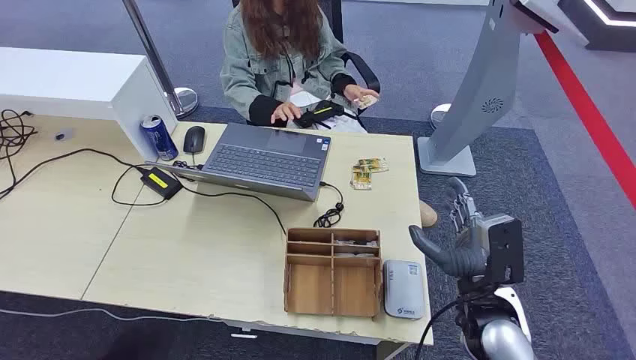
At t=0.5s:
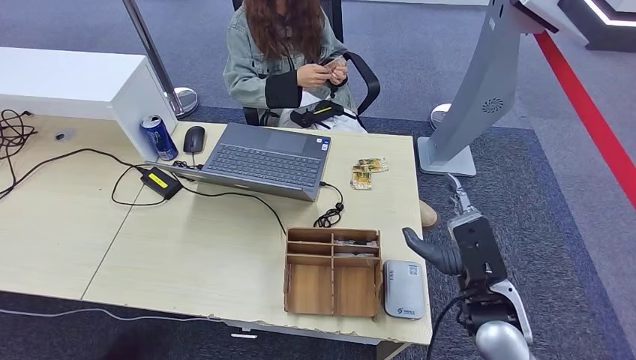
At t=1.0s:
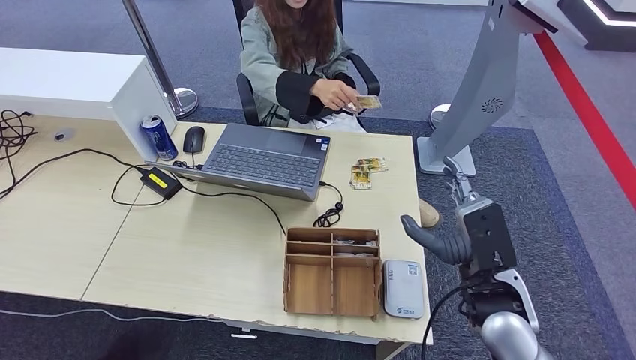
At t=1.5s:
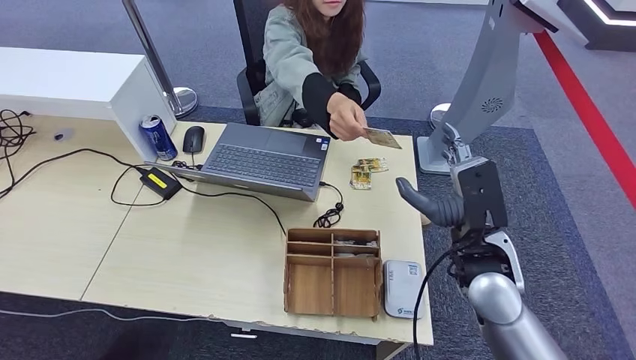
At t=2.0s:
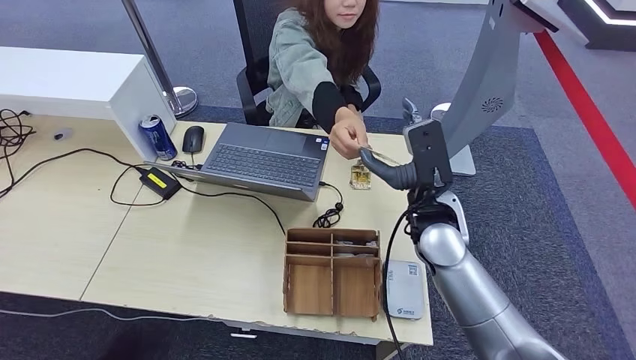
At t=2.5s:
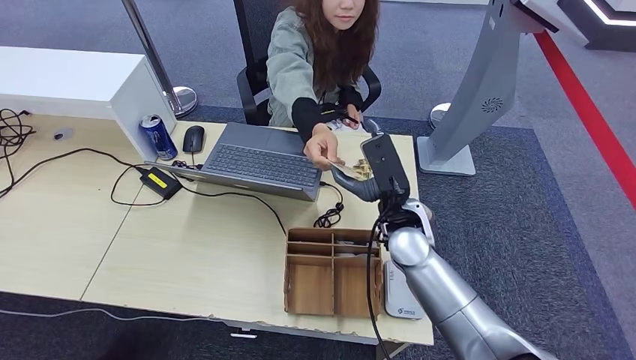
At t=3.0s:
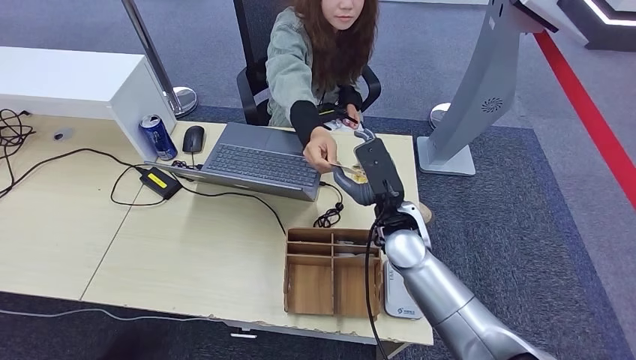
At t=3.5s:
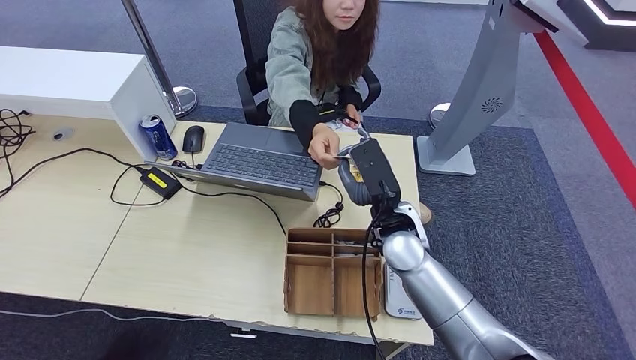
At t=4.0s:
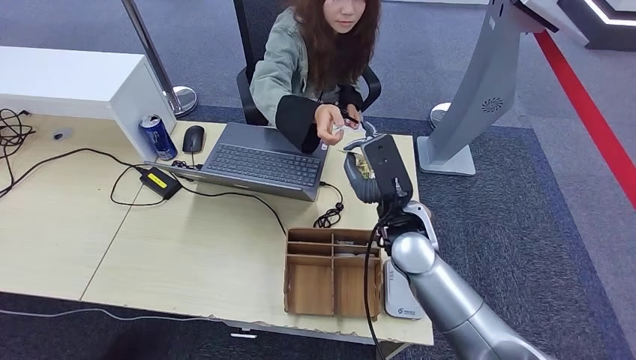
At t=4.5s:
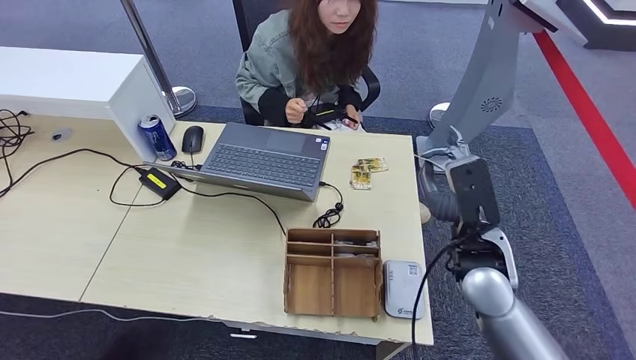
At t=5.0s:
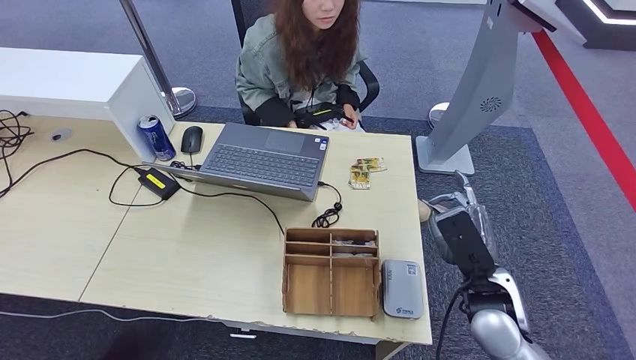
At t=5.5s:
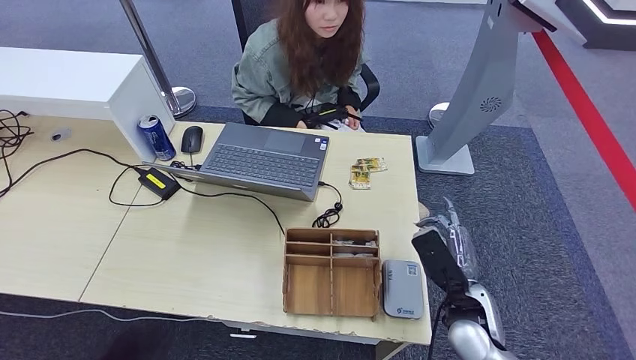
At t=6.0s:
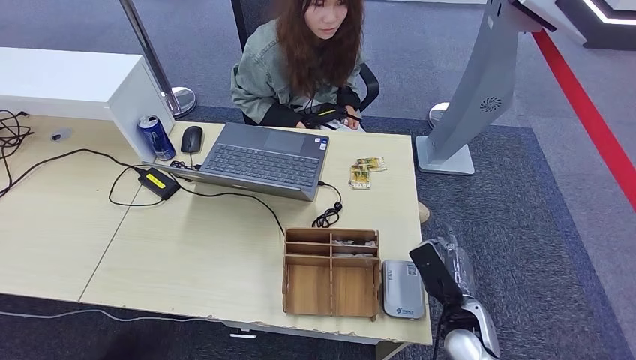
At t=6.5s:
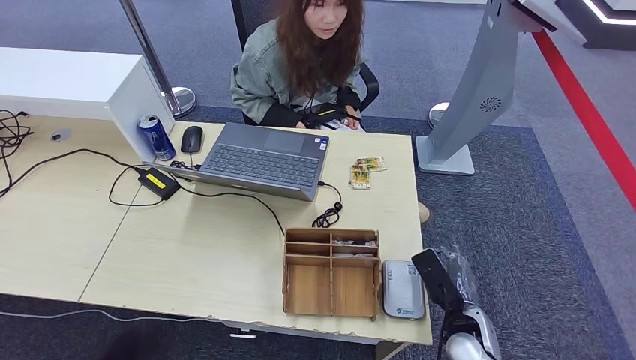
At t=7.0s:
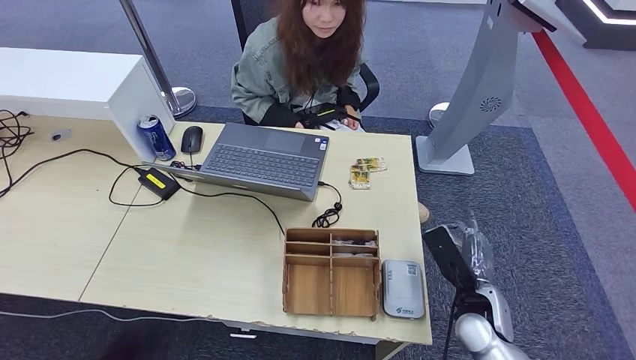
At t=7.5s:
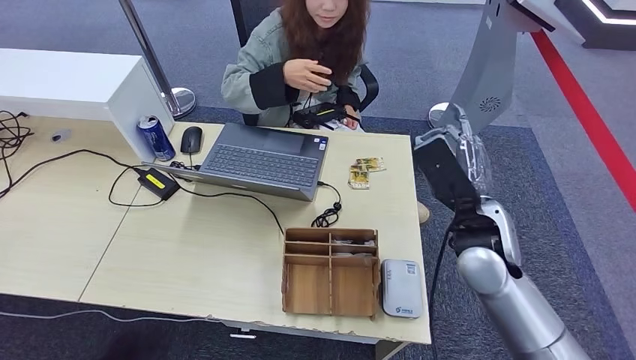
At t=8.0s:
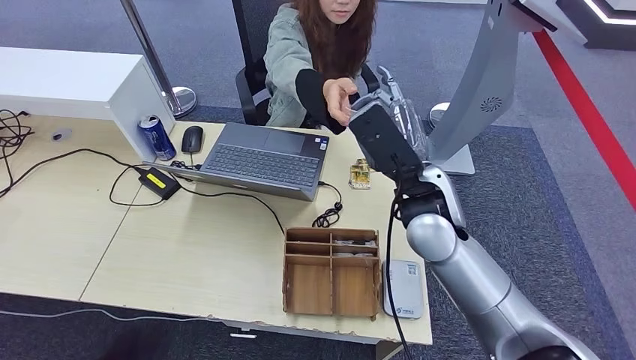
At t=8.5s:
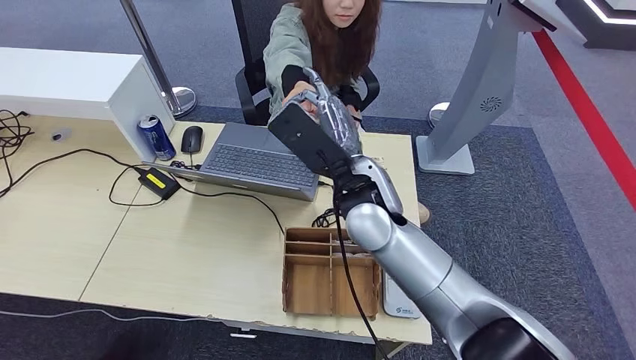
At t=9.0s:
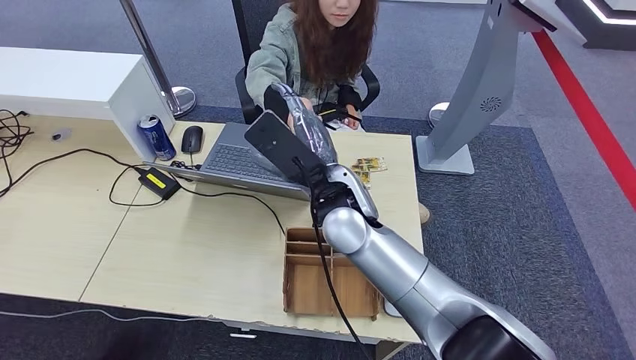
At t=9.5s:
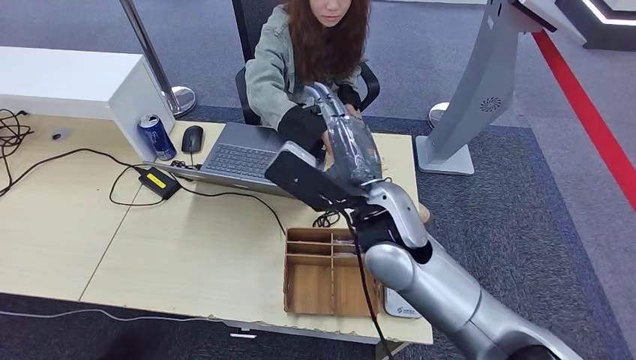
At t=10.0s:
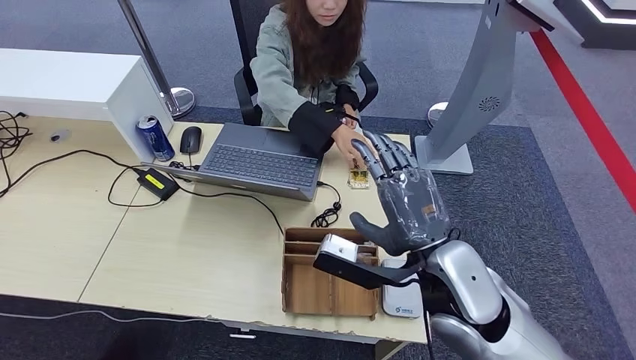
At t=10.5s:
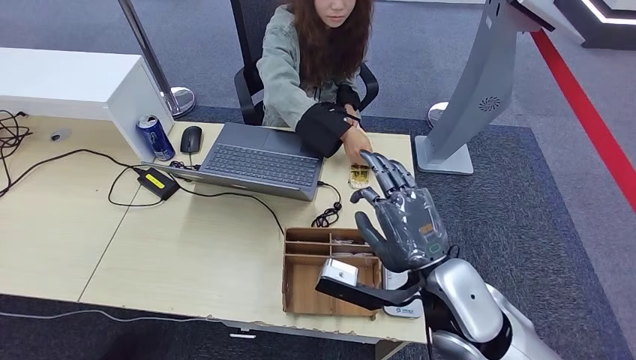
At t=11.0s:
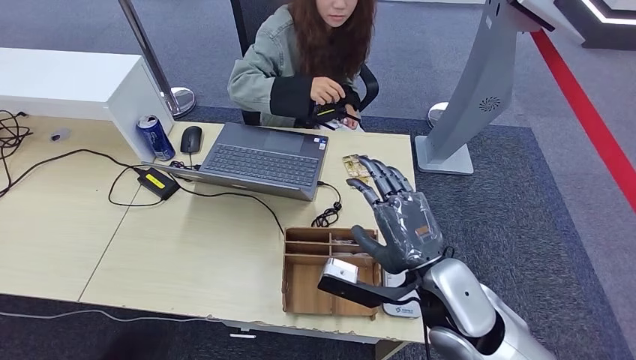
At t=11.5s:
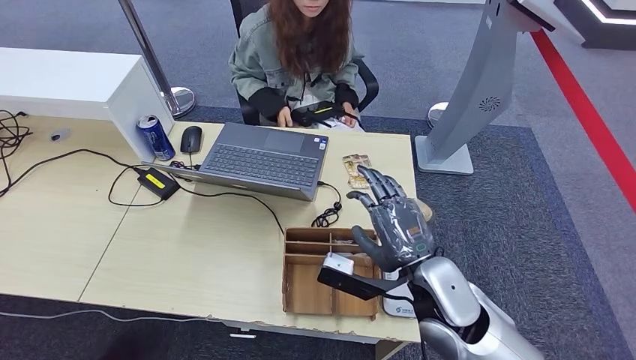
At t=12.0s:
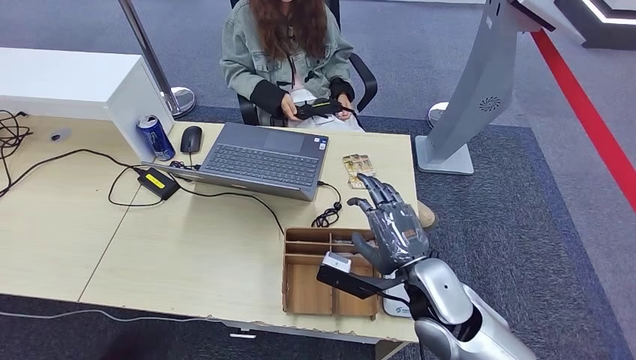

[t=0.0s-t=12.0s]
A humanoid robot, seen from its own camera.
Step, t=0.0s to t=2.5s: Take the ID card from the person's hand.
Step, t=3.0s to t=7.0s: Place the ID card on the card reader.
Step, t=7.5s to t=9.5s: Hand the ID card to the person.
t=2.0s to t=4.0s: The hands stay close to where they were, moving slightly.
t=4.0s to t=6.0s: The right hand shifts approximately 25 cm downward, backward and to the right.
t=6.0s to t=8.0s: The right hand shifts roughly 30 cm upward, forward and to the left.
t=10.0s to t=12.0s: The right hand travels downward by approximately 10 cm.

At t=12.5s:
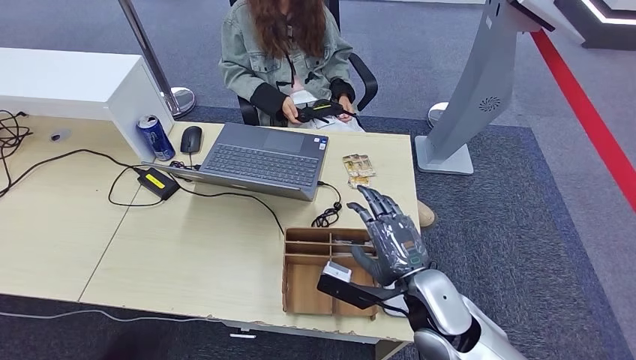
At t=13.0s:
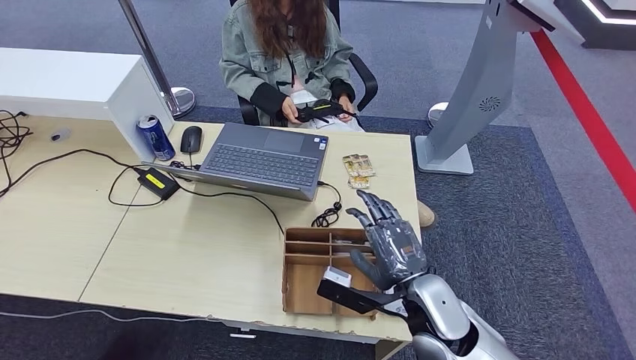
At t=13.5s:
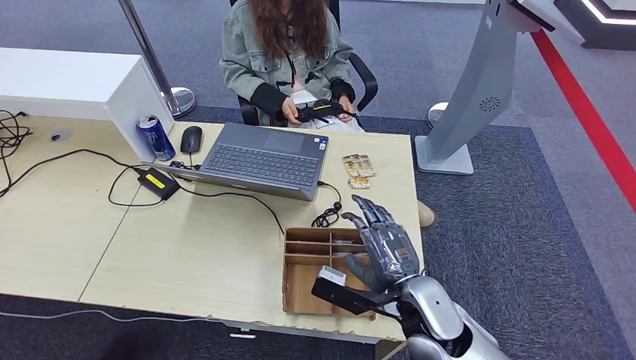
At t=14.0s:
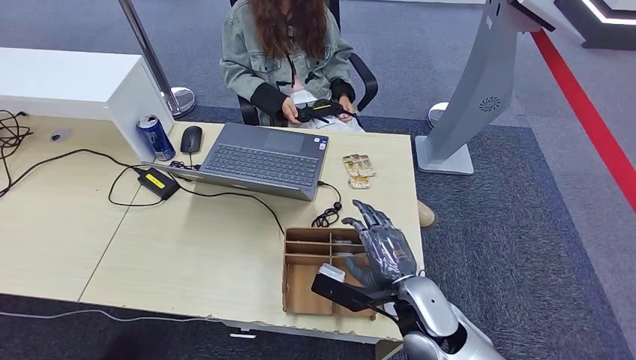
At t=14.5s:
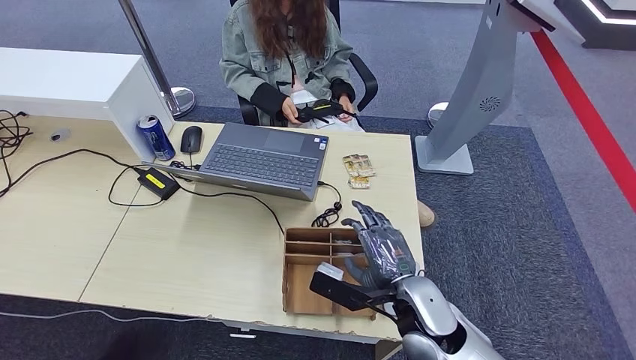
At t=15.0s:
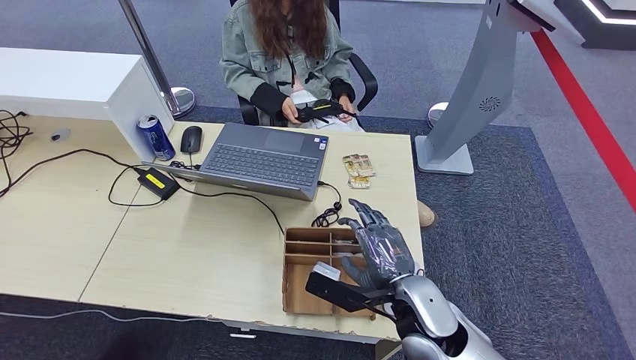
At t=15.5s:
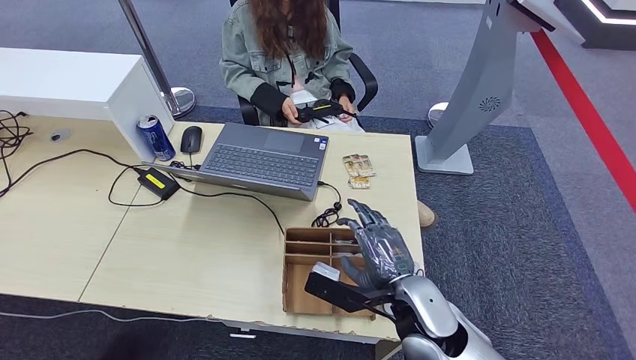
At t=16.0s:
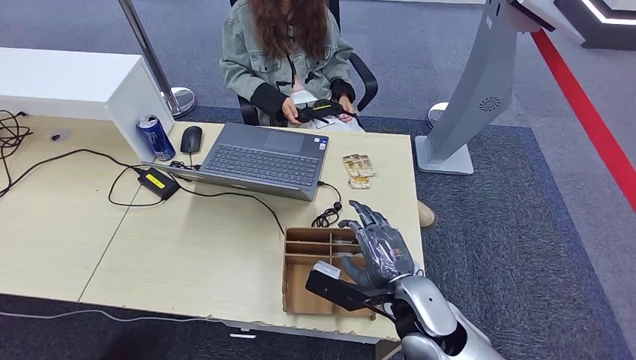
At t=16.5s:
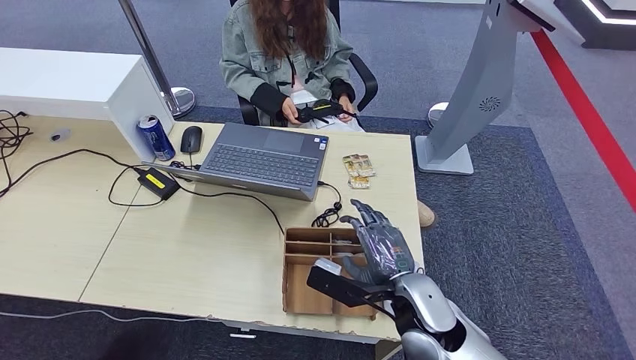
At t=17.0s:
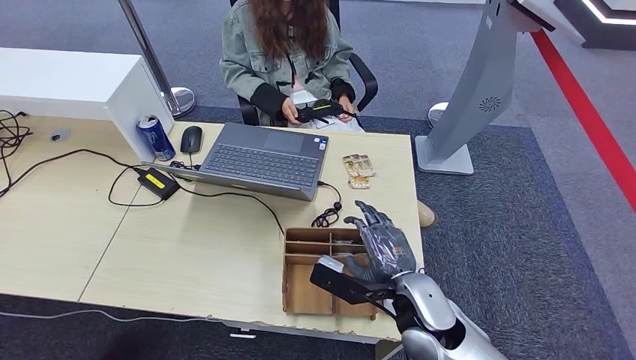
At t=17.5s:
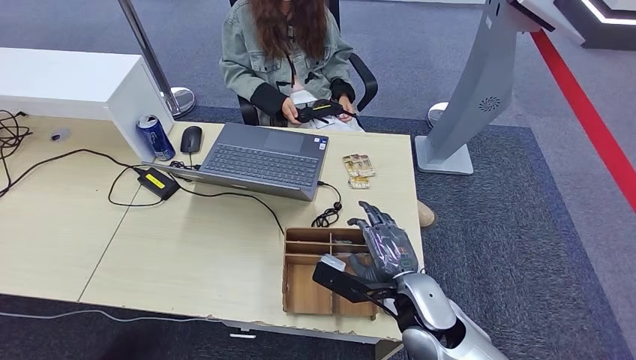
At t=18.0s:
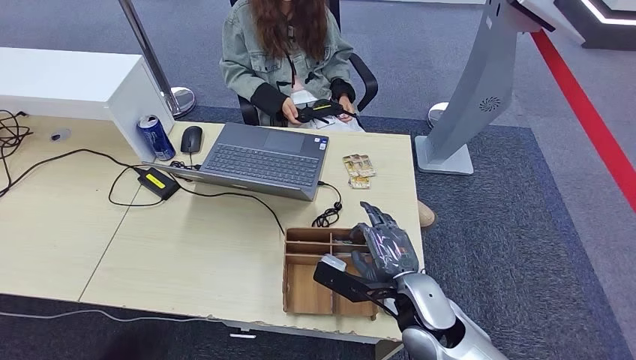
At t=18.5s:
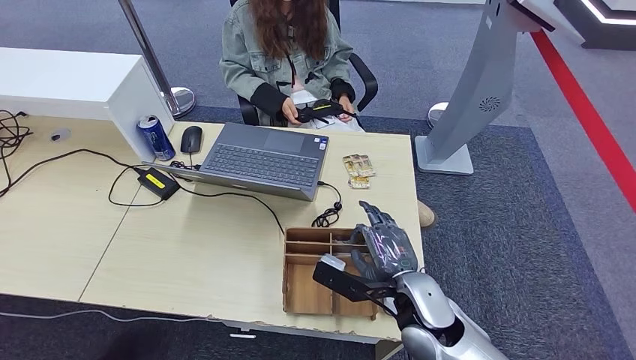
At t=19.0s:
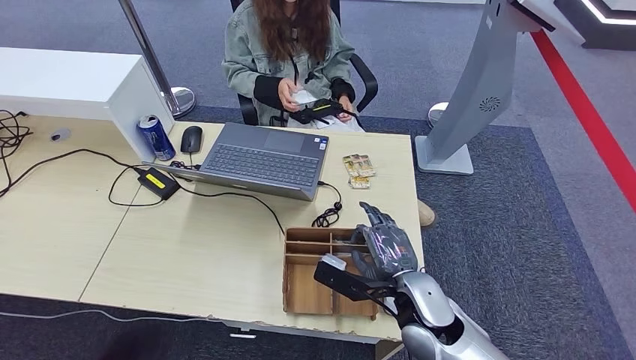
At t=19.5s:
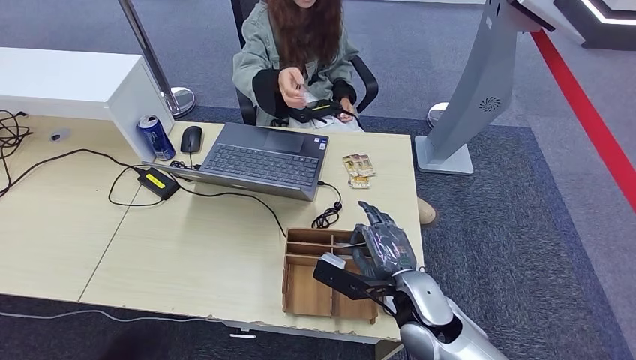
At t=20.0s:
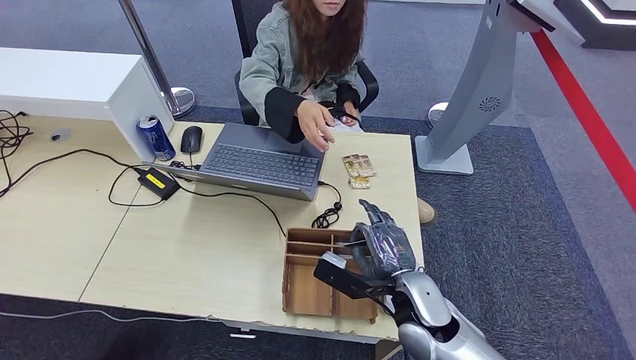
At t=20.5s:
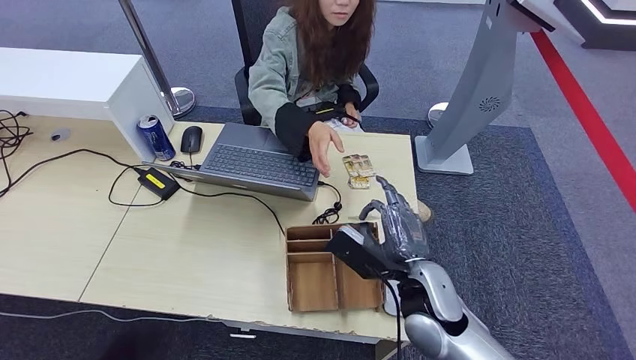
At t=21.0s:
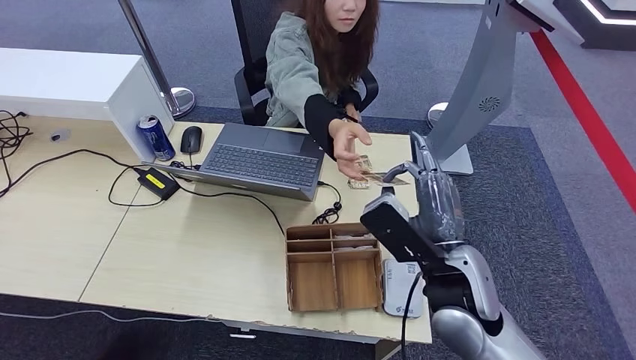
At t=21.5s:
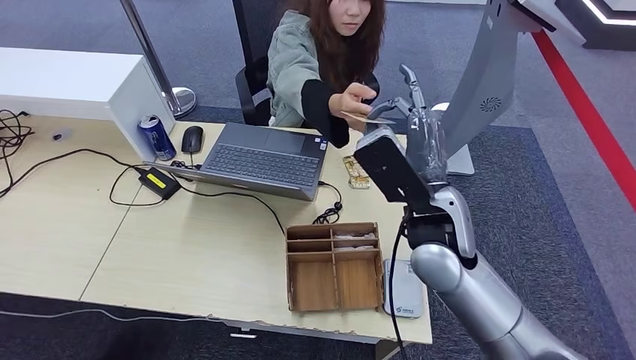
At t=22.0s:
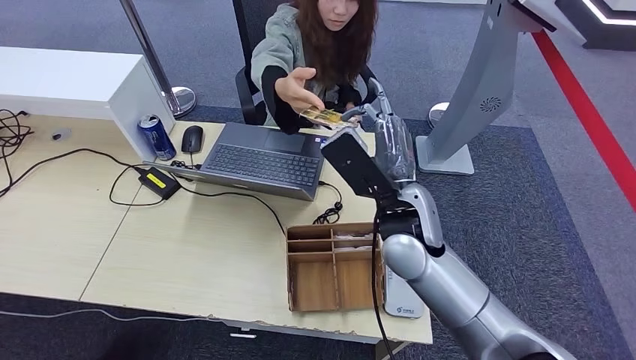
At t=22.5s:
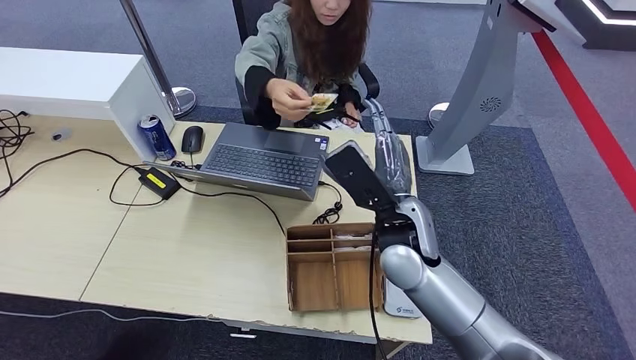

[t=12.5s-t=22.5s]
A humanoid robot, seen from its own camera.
Step, t=12.5s to t=20.0s: Pick up the room key from the key card box.
Step, t=20.5s to t=22.0s: Hand the room key to the person.
t=12.5s to t=16.5s: The hands make only small movements.
t=16.5s to t=18.5s: The left hand heads to the left, covering approximately 5 cm.
t=18.5s to t=20.5s: The hands make only small movements.
t=20.5s to t=22.5s: The left hand goes about 10 cm to the right, while the right hand moves upward and forward, roughly 10 cm.
